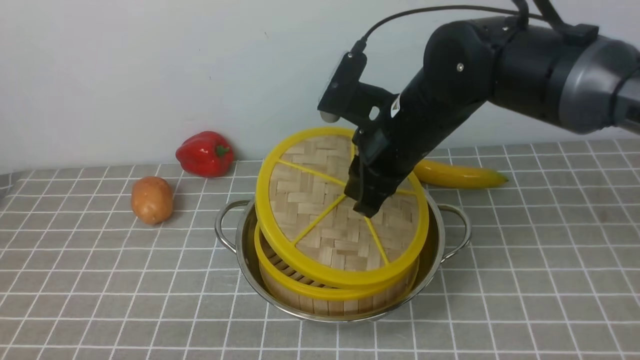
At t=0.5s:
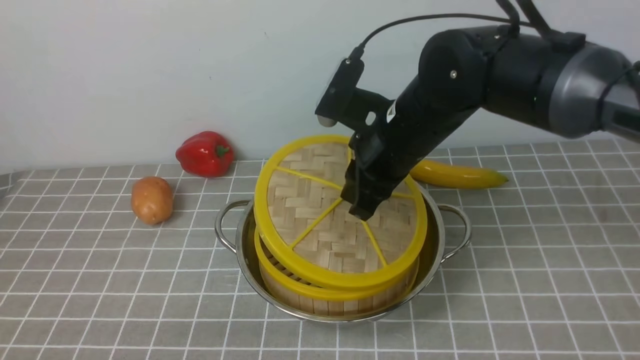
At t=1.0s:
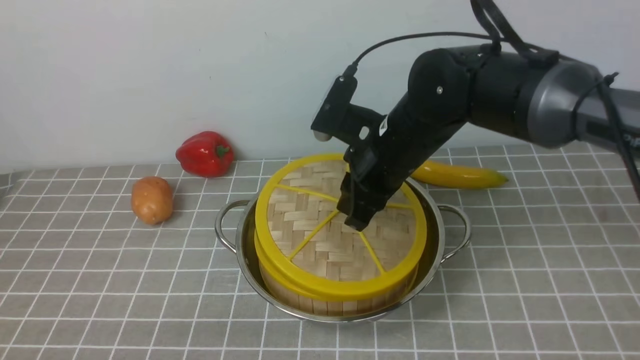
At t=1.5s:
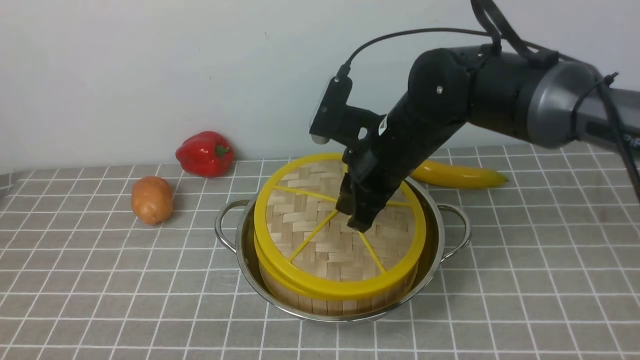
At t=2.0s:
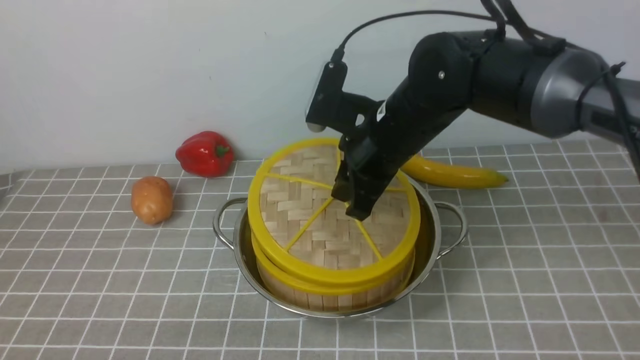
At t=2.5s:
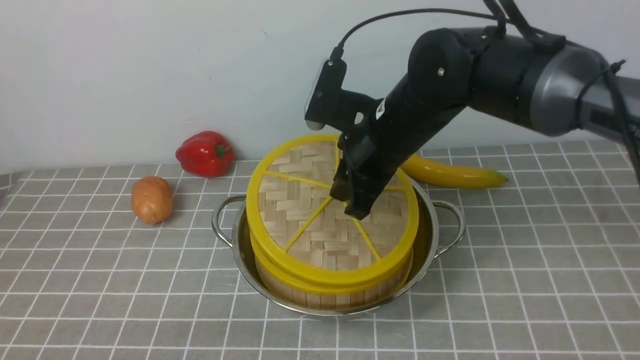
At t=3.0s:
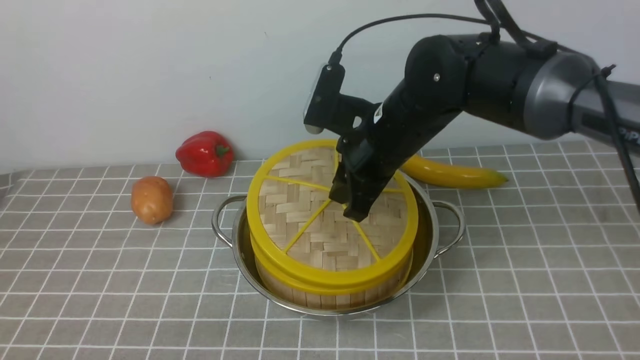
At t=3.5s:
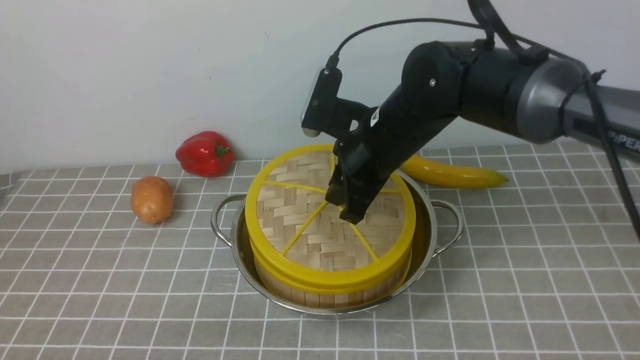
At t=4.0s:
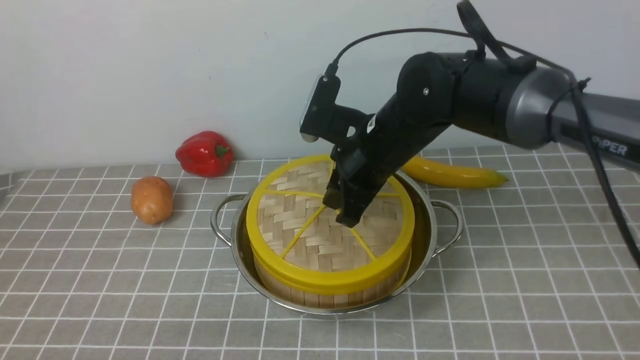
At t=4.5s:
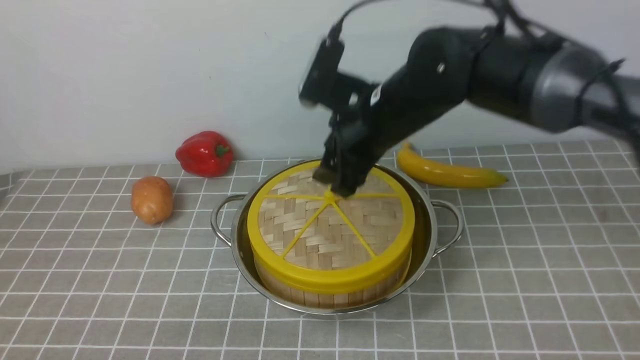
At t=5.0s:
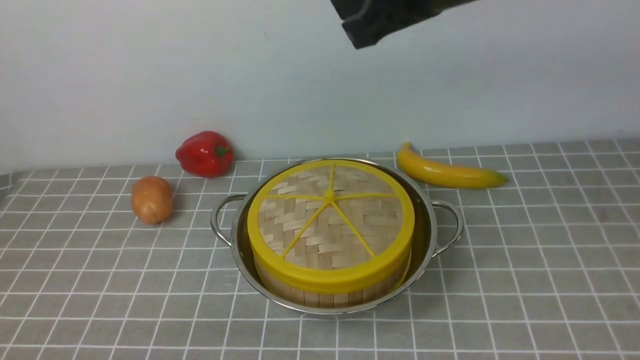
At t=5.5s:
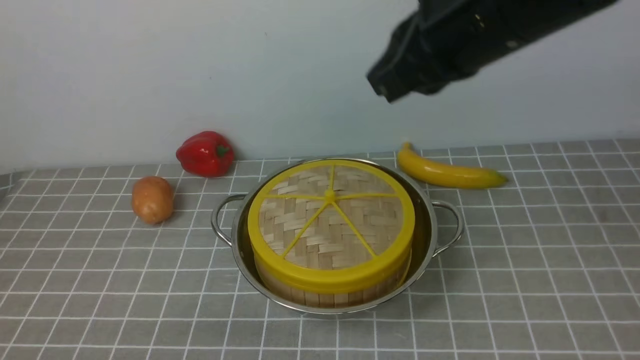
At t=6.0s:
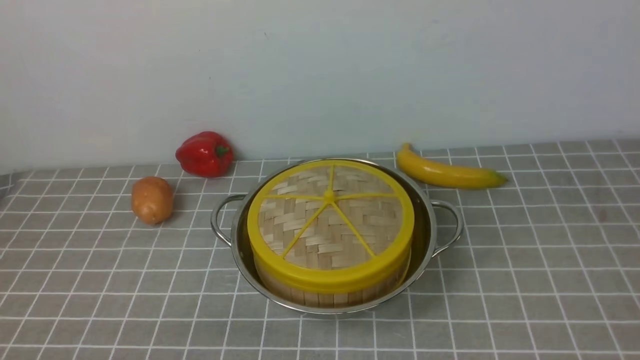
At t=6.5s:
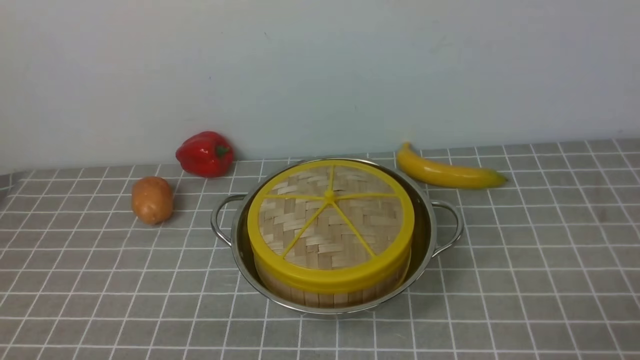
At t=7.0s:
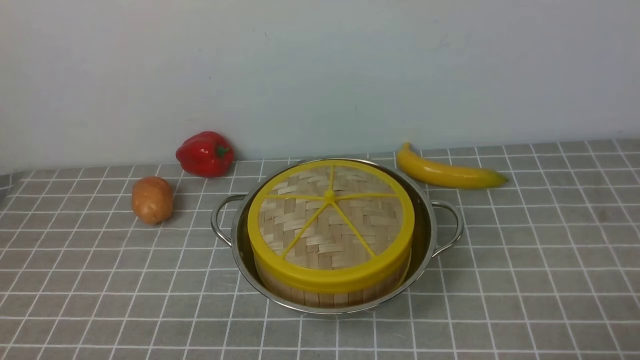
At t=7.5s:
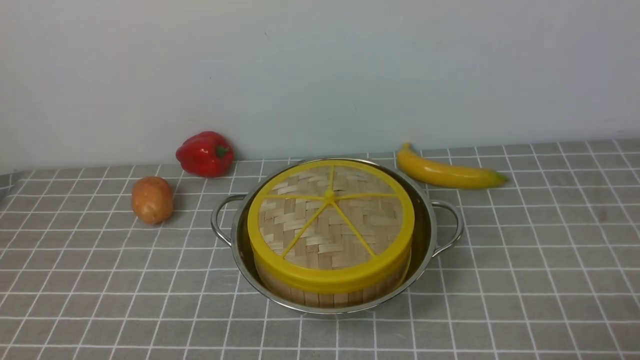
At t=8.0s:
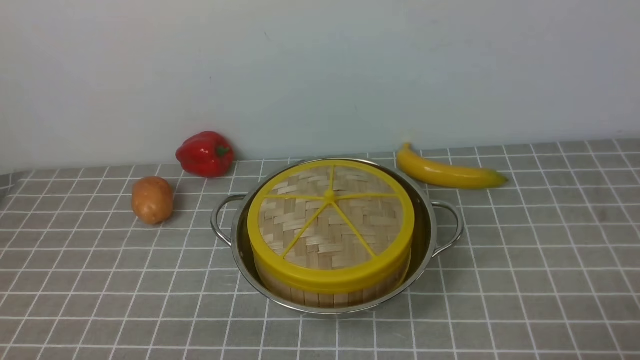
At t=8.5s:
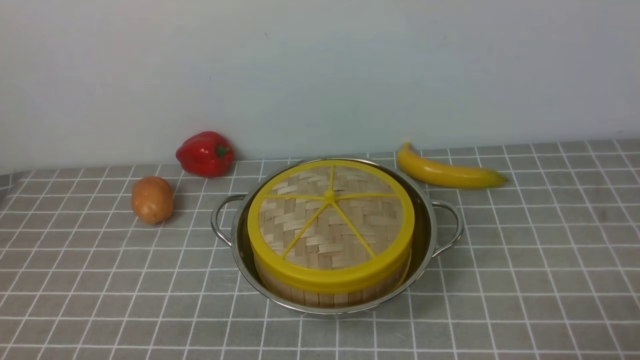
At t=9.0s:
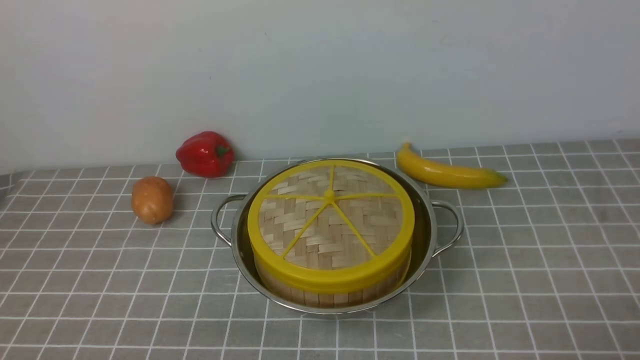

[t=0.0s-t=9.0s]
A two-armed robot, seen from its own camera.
Task of the whole recording: place the steamer in the pot on the grey tablecloth, and put the lid on the steamer.
Step, t=0.0s to t=4.5s: use the right arm to place the steamer lid on the steamer.
t=0.0s to t=2.0s: The grippers stay close to where they were, moving slightly.
t=2.0s to t=4.5s: The right gripper opens.
t=4.5s to t=7.0s: The right gripper moves backward and to the right, about 40 cm, and closes up.
